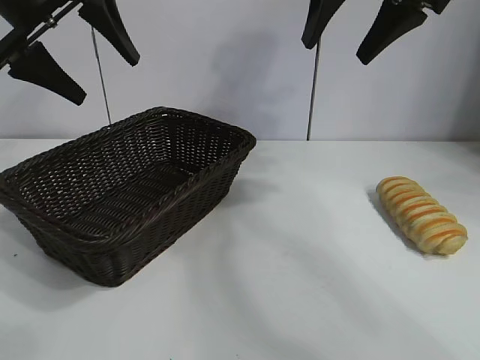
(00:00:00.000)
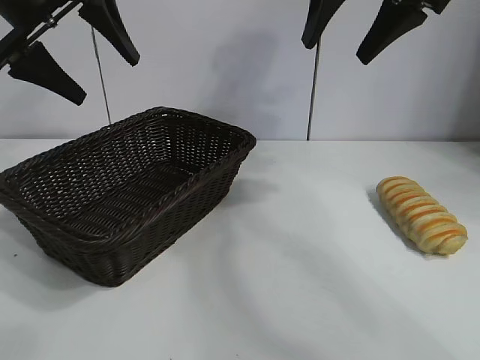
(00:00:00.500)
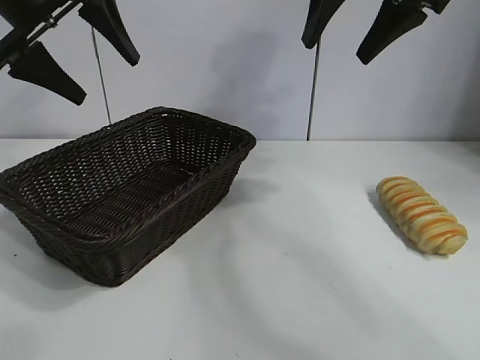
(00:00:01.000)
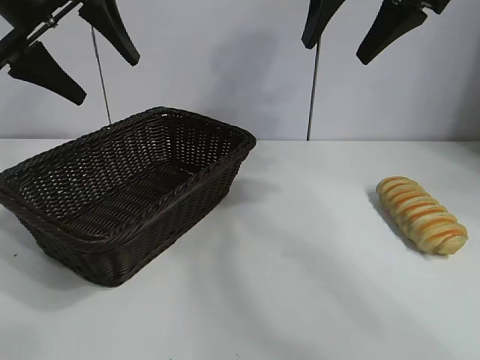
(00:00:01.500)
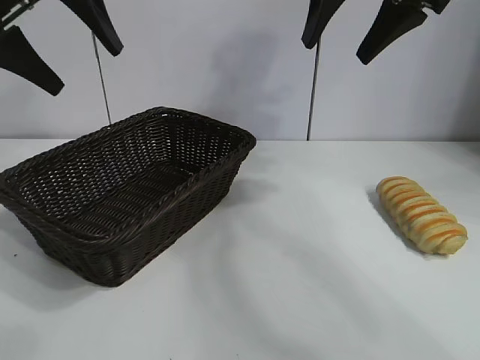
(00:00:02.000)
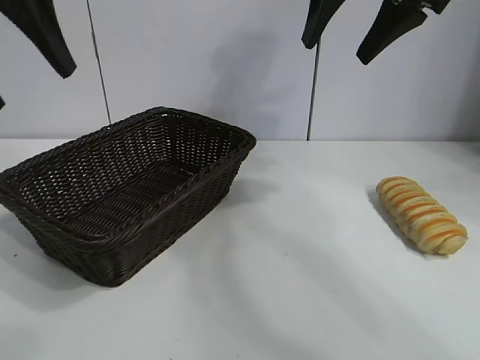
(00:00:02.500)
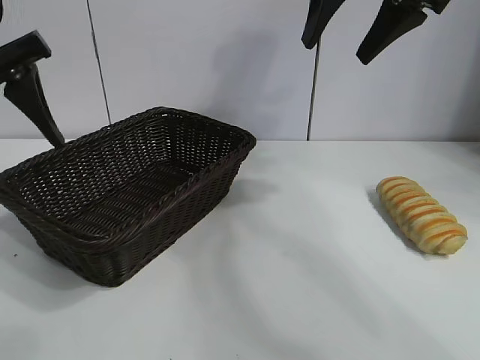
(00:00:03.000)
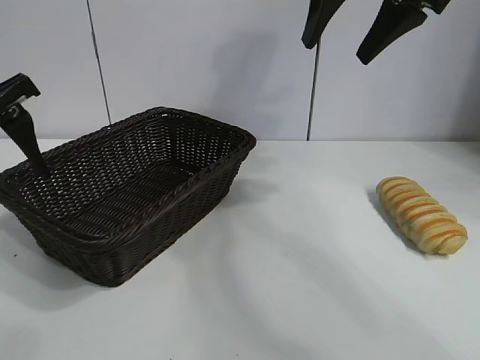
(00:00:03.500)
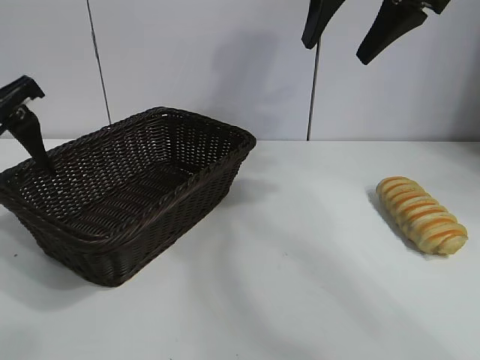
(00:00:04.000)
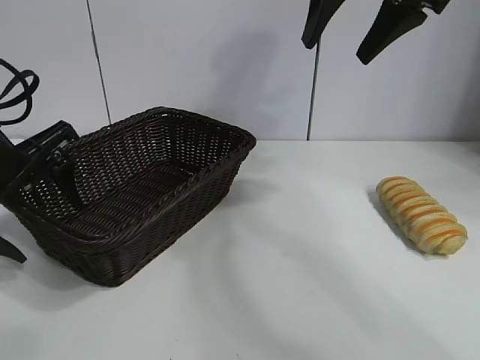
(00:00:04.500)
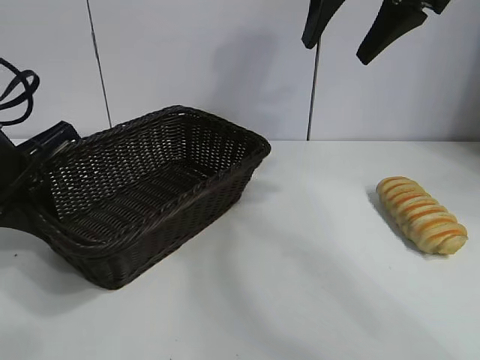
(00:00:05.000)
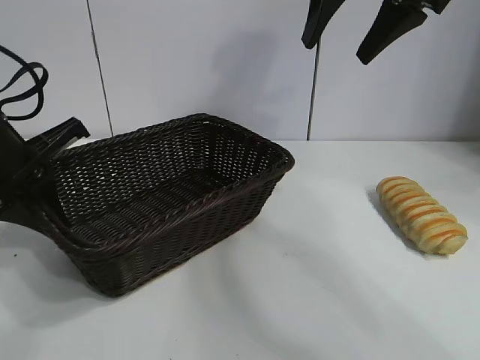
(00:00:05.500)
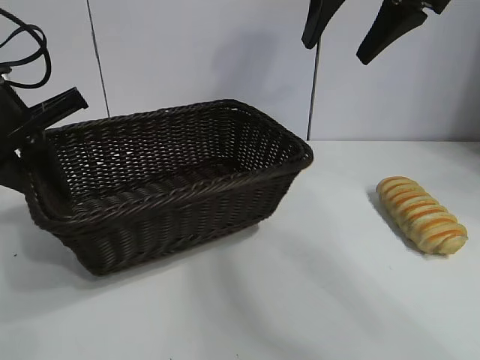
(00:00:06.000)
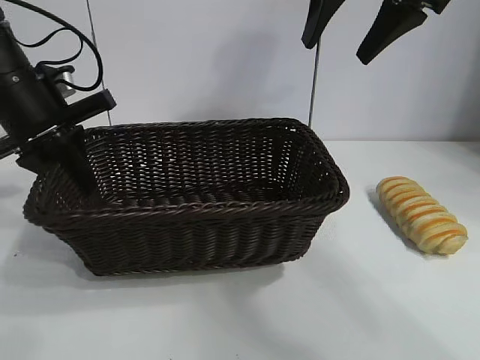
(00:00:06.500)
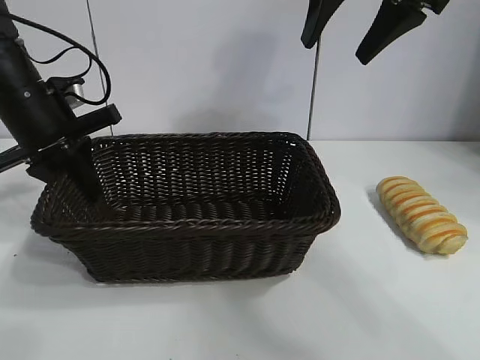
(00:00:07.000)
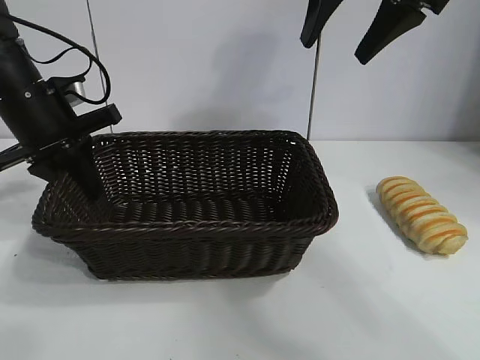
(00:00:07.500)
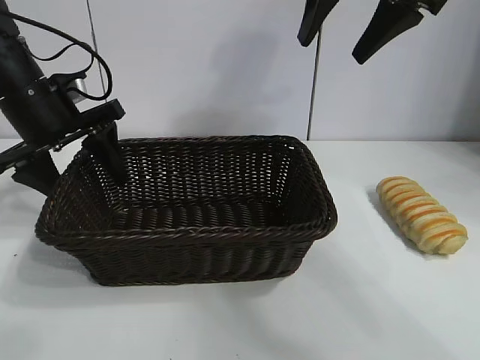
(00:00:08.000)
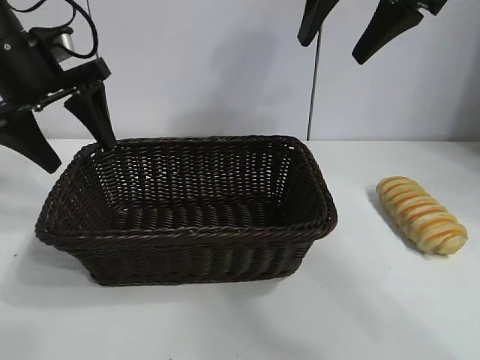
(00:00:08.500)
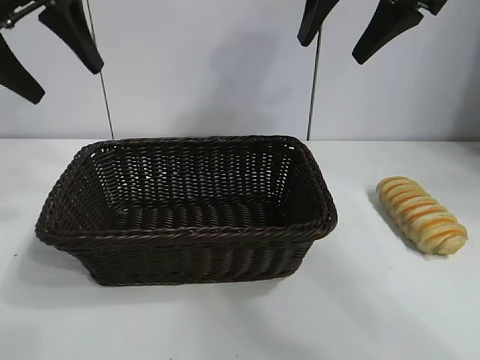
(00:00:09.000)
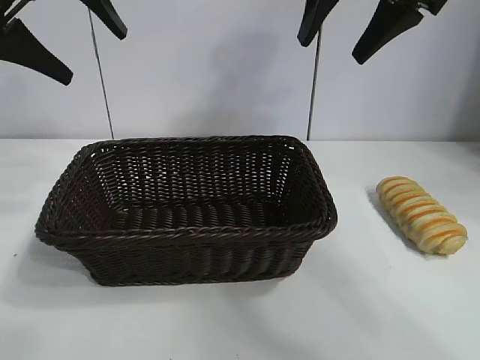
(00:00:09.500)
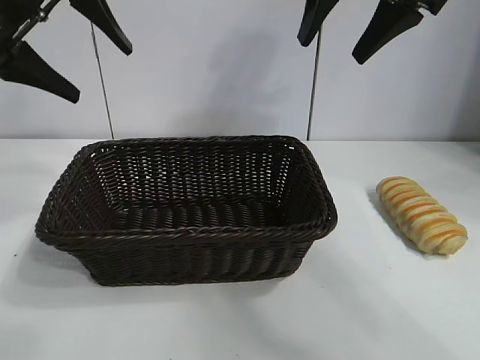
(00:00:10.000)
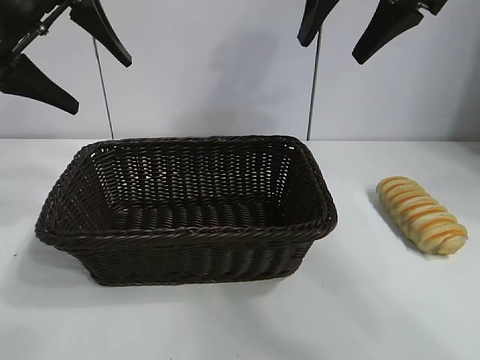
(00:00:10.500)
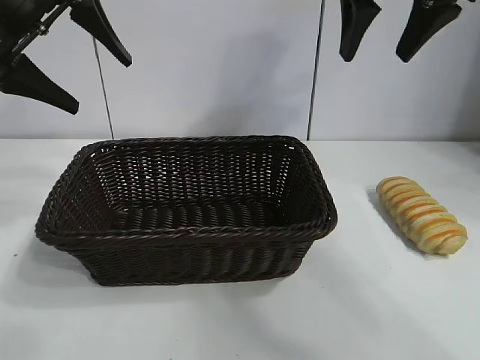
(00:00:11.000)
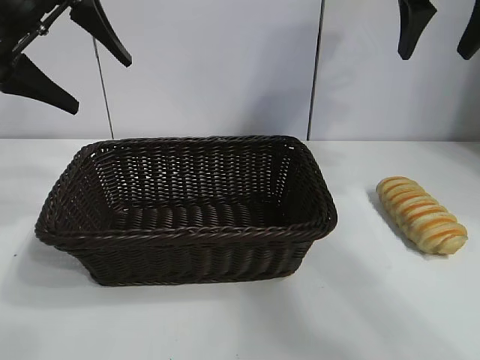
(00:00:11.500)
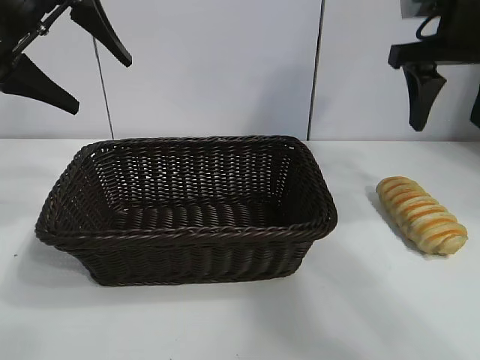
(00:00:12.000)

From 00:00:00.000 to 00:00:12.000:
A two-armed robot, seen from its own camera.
Task of the whole recording: pick up the long bread and put it into the basket.
Step, from 00:00:02.000 to 00:00:05.000: Grasp the basket with the left gripper.
Step, from 00:00:05.500 to 00:00:08.000: Place the basket in the center of the table with the left gripper.

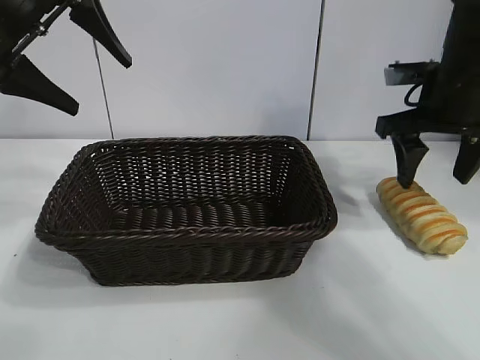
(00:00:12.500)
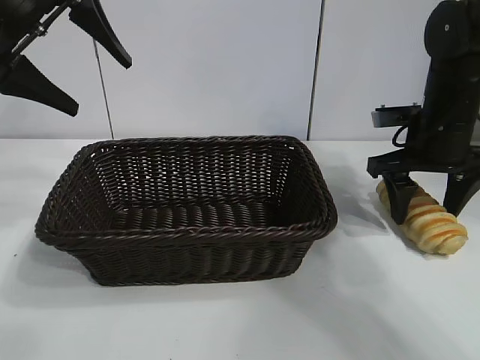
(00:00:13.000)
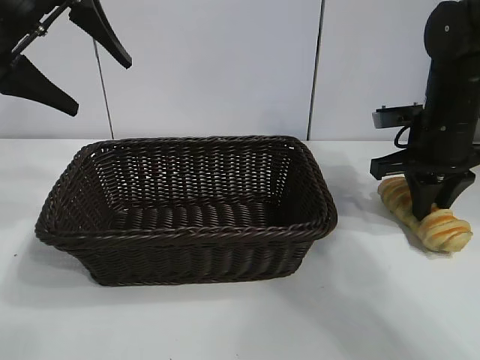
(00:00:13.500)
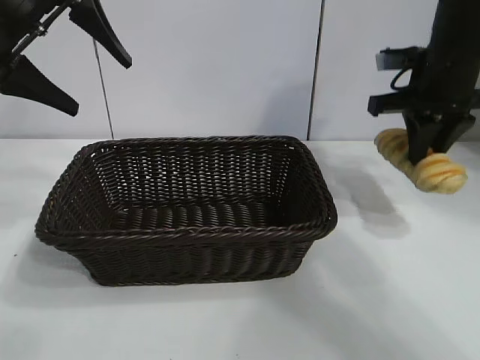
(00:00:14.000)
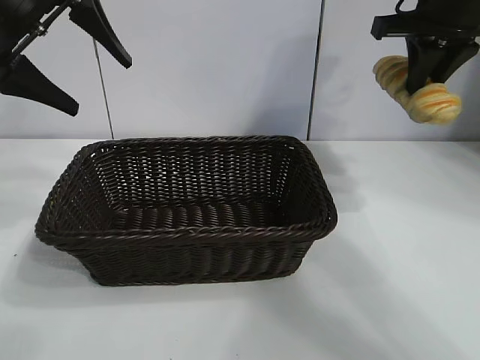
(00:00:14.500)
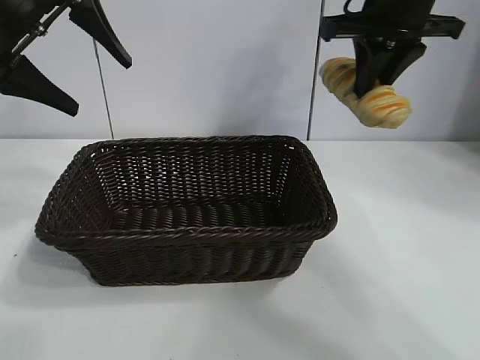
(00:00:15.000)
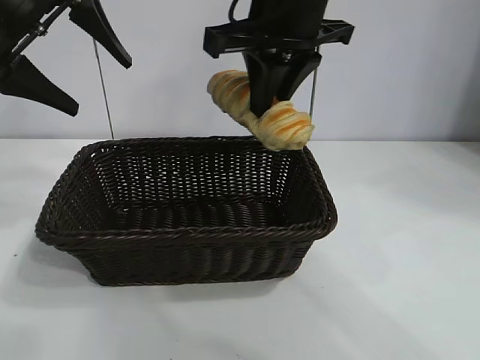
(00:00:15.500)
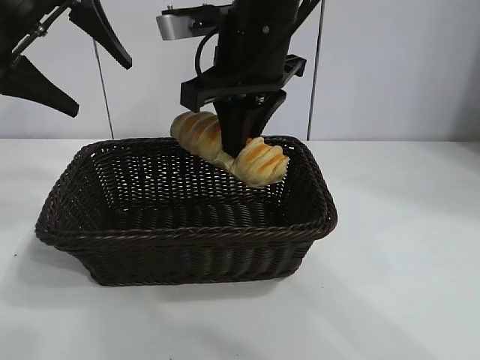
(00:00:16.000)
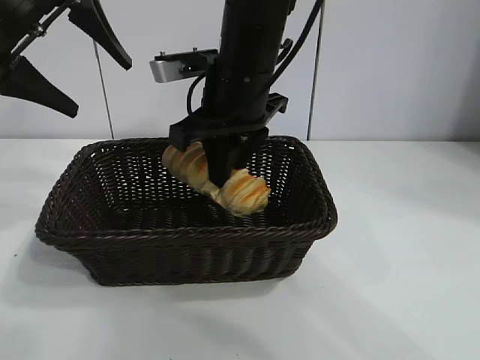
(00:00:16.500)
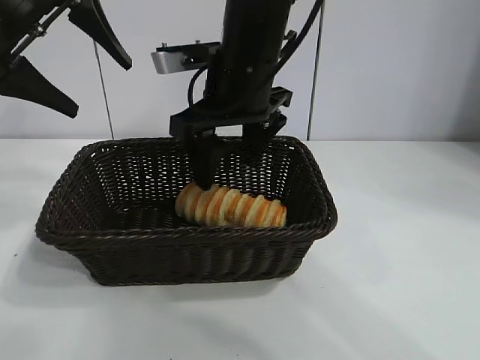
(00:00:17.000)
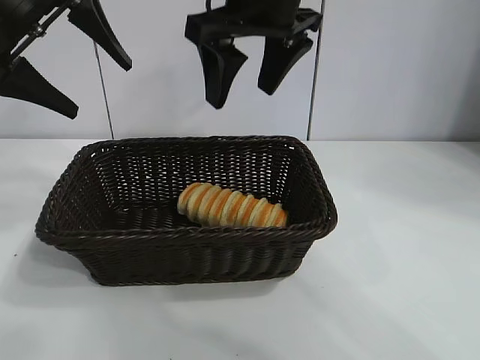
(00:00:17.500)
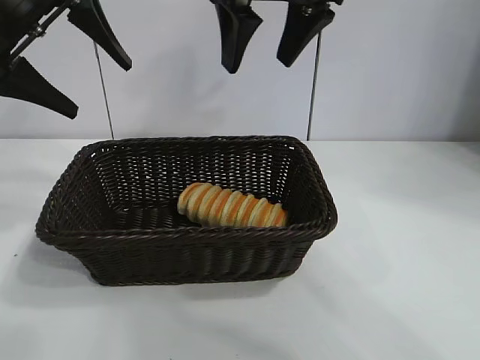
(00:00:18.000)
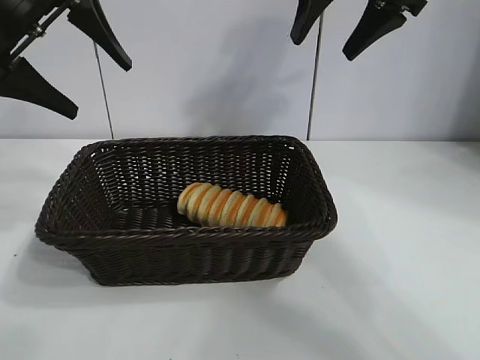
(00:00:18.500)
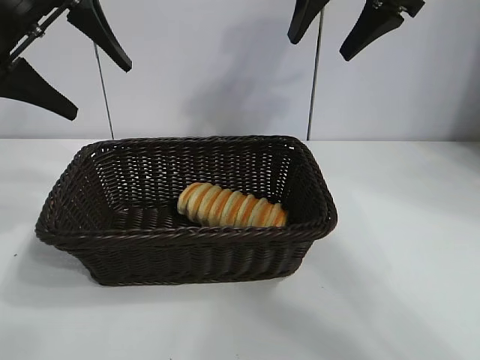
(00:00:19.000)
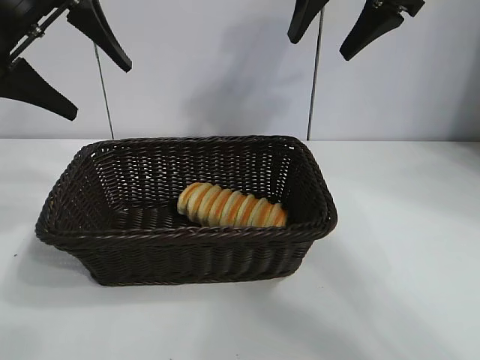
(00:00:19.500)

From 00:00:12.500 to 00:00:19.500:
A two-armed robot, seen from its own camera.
Task of the whole recording: pick up the long bread and put it into the basket.
Step, from 00:00:14.000 to 00:00:17.000: Place the long bread in the basket with right gripper.
